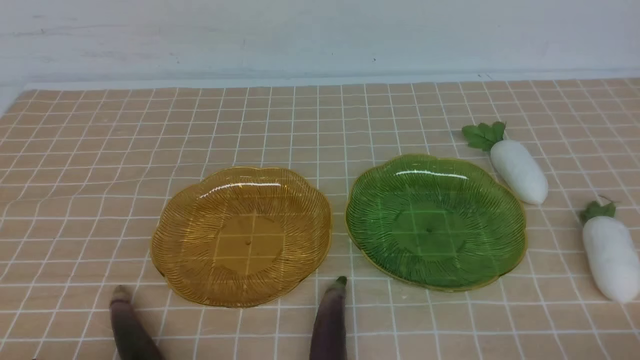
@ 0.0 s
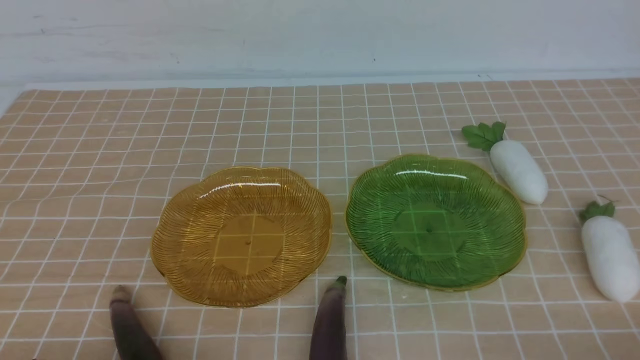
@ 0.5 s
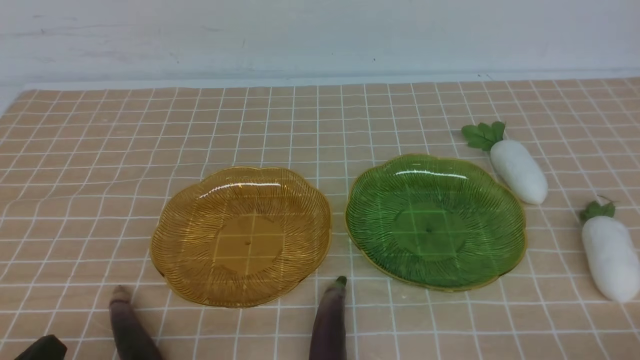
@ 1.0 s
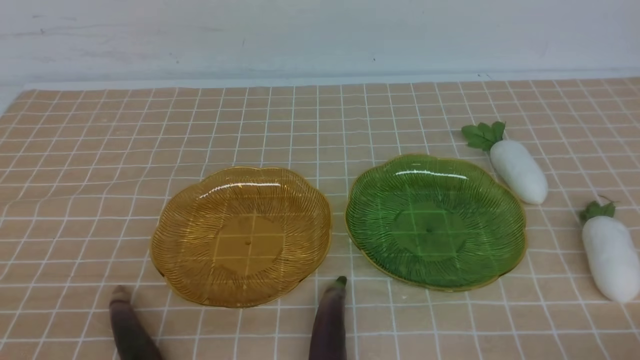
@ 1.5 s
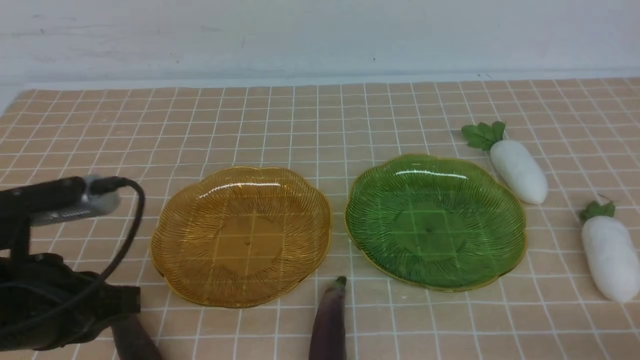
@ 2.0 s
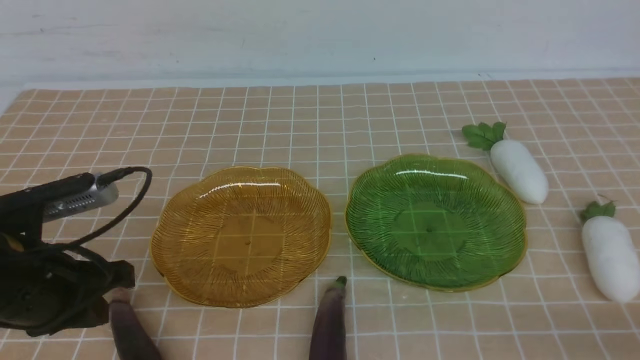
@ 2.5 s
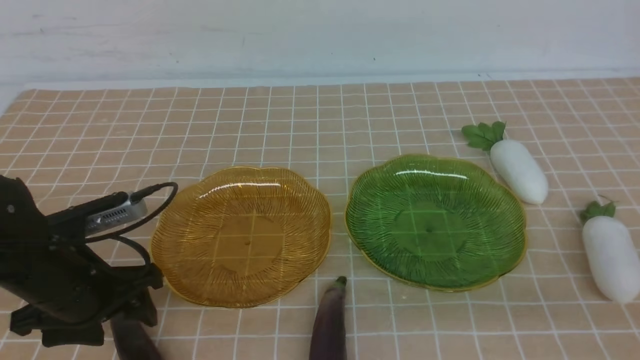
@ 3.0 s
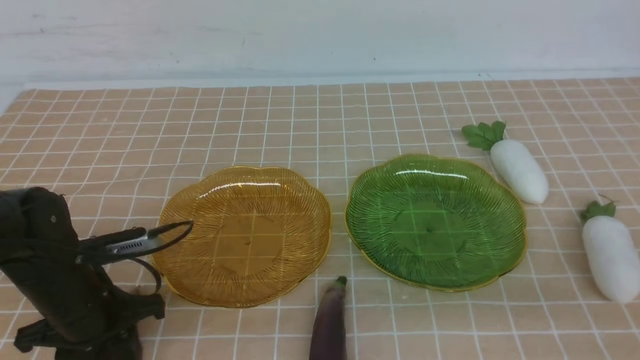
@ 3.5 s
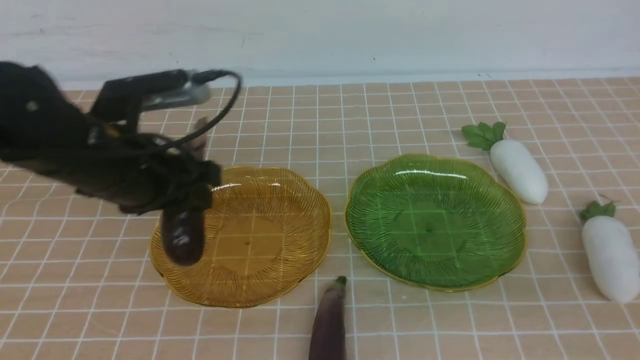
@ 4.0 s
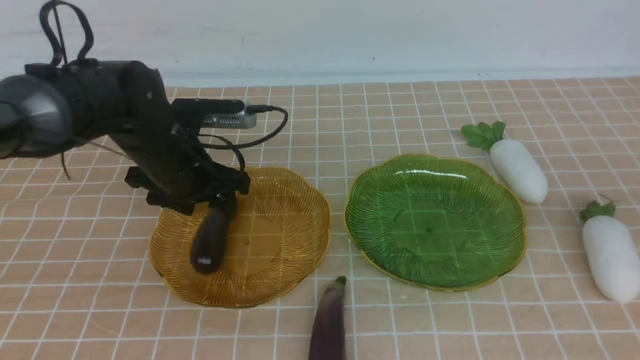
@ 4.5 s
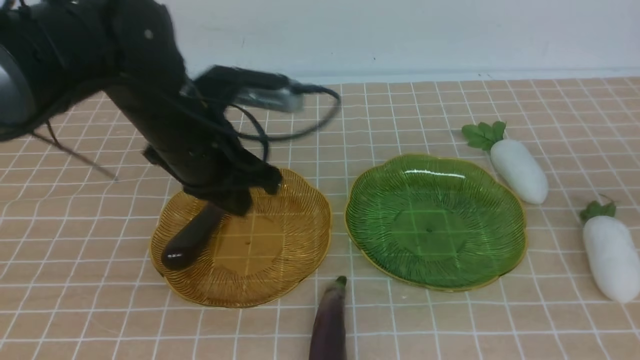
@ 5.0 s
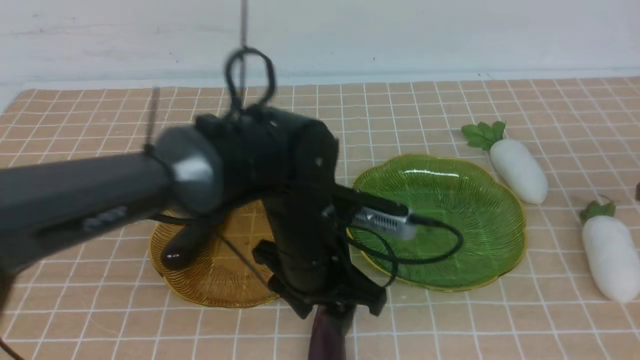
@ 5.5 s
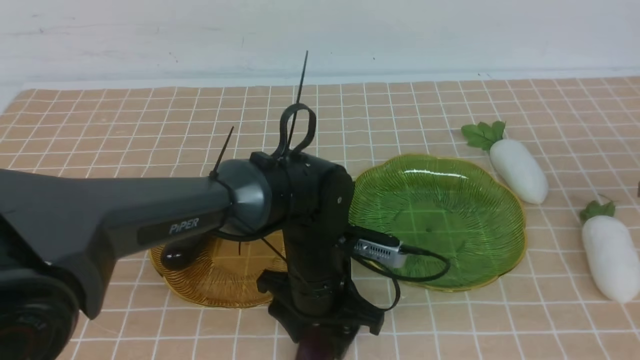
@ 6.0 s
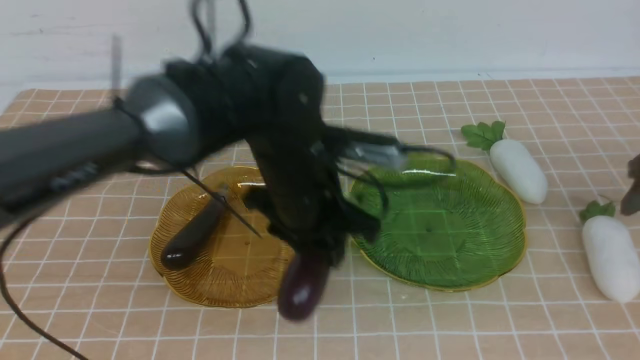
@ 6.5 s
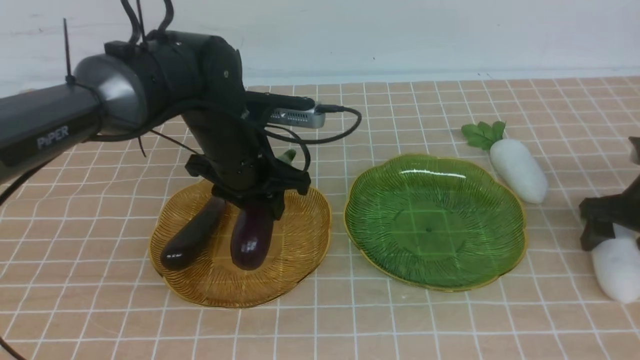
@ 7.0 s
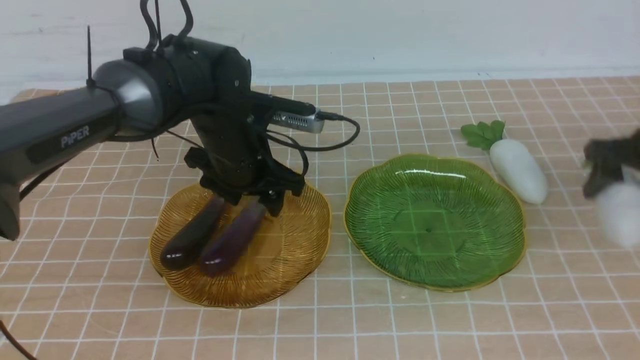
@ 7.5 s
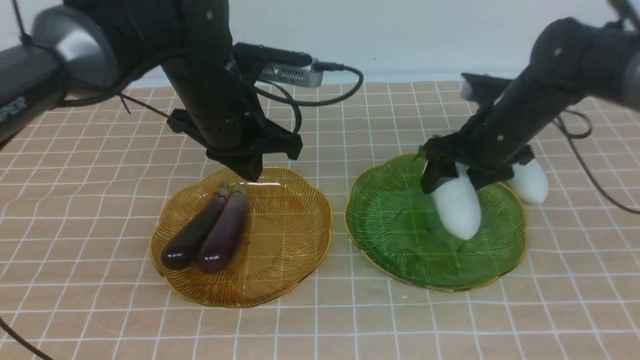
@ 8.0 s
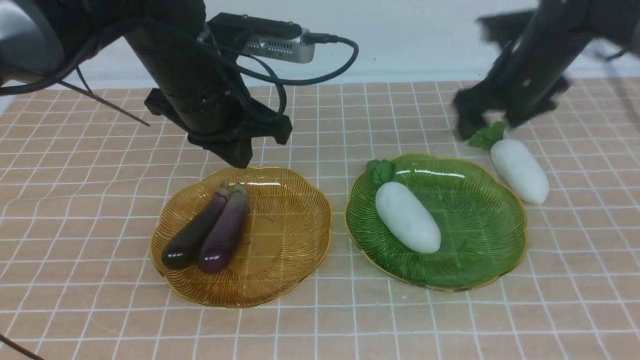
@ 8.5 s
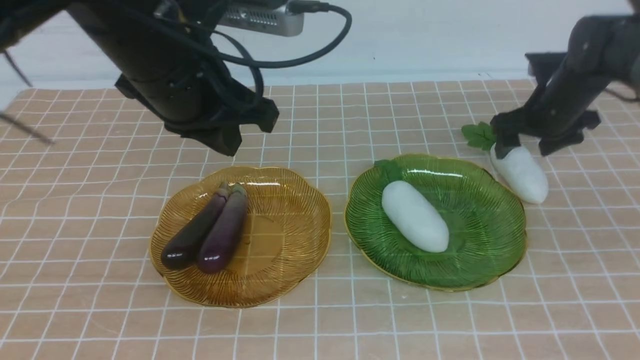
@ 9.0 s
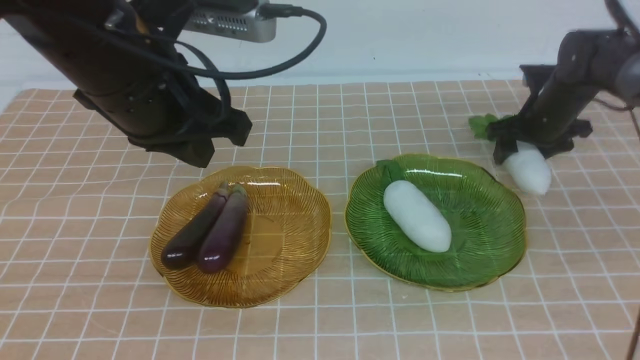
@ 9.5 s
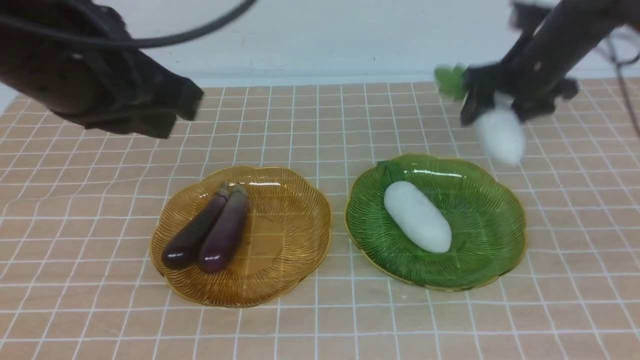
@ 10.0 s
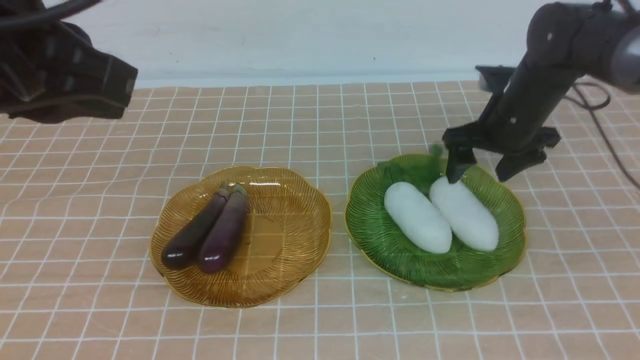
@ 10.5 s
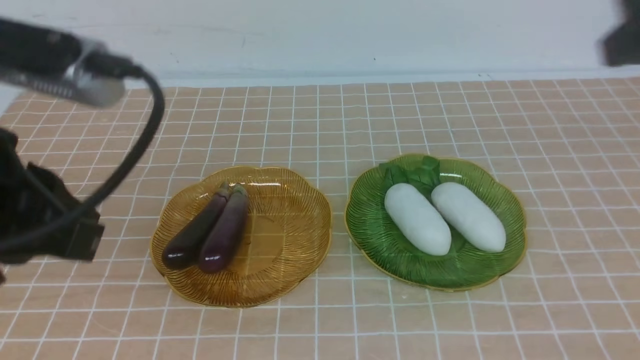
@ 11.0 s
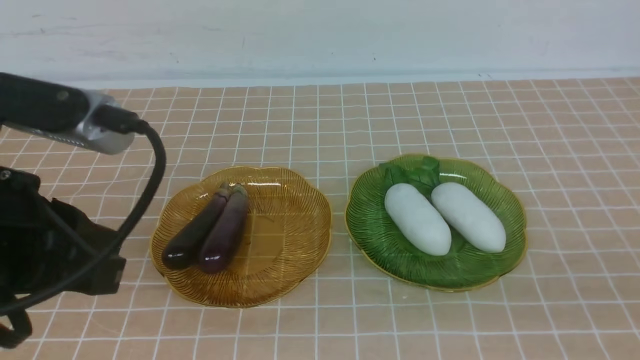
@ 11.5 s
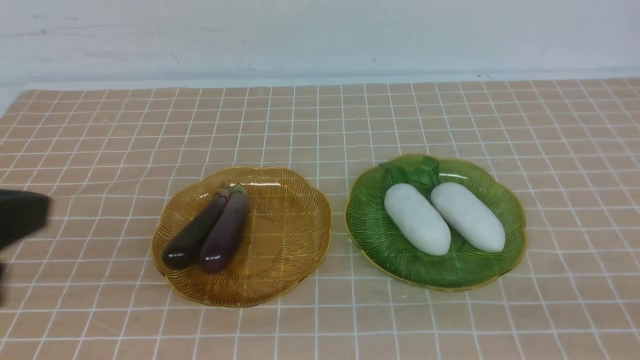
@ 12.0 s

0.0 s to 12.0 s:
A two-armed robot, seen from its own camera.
Step, 0.0 to 7.5 s: use the left arm to grab an eggplant and put it into the left plate.
Step, 8.0 to 10.5 s: use the right arm to grab a radish and put it into the right plate.
0.0 to 2.0 s: The left gripper travels forward and upward by about 15 cm.
2.0 to 4.0 s: The right gripper shifts some 15 cm upward and forward; the left gripper heads forward, covering about 20 cm, and opens its fingers.
4.0 to 6.0 s: The right gripper goes roughly 20 cm forward, to the right and downward, and opens its fingers, while the left gripper shifts roughly 20 cm to the right and downward, and closes and opens again.
6.0 to 8.0 s: The right gripper heads to the left and forward, covering roughly 20 cm, while the left gripper heads upward, to the left and forward, covering roughly 20 cm, and closes up.
8.0 to 10.0 s: The right gripper travels to the right and back again, approximately 10 cm each way. Meanwhile the left gripper travels backward, upward and to the left by about 20 cm.
10.0 to 12.0 s: The right gripper travels backward by about 40 cm, and closes its fingers. Meanwhile the left gripper travels backward and to the left by about 15 cm.
